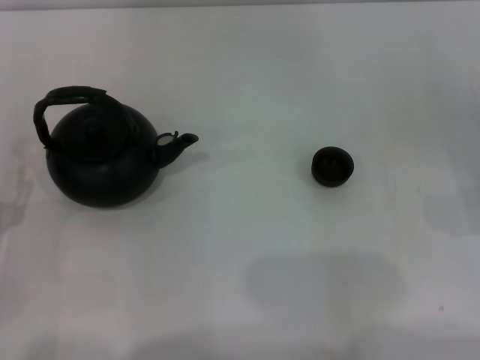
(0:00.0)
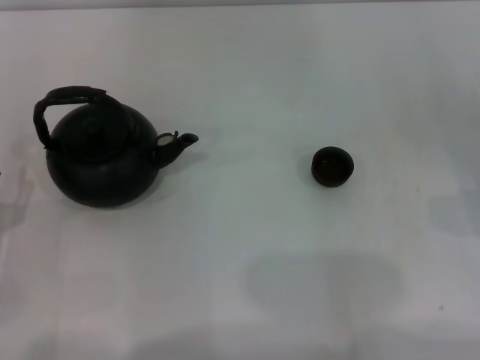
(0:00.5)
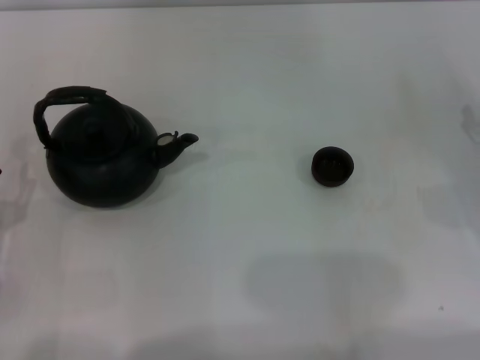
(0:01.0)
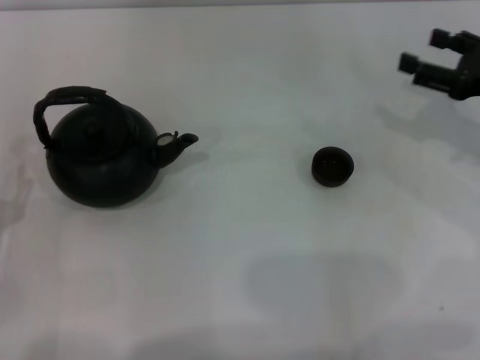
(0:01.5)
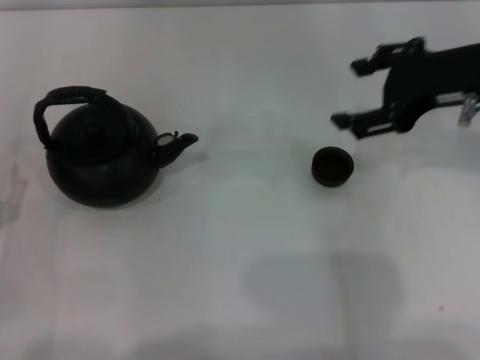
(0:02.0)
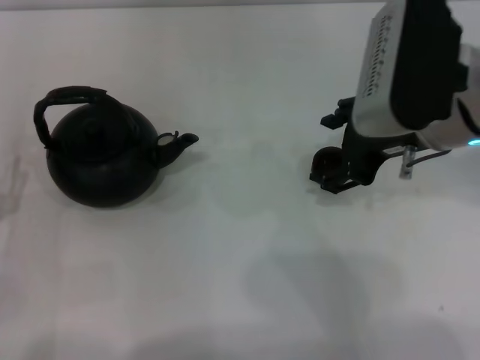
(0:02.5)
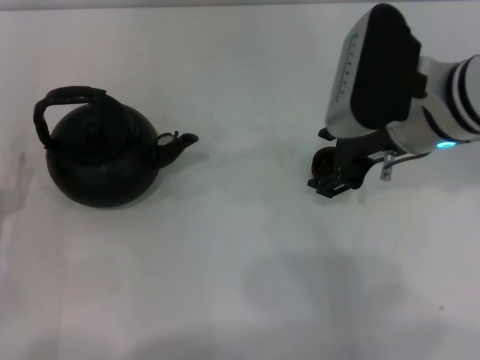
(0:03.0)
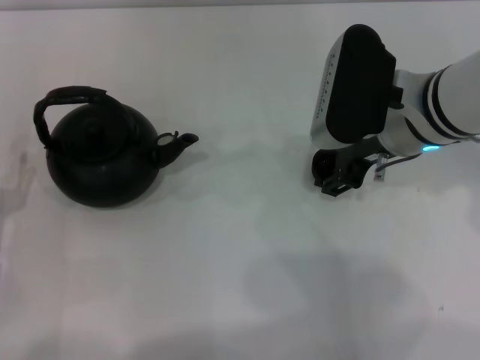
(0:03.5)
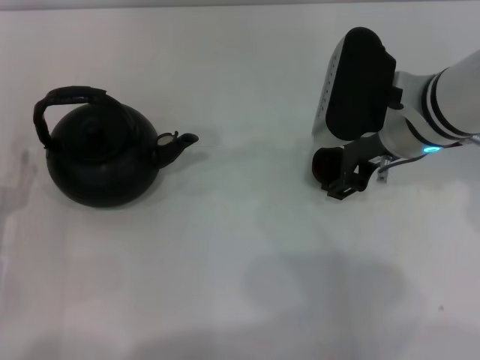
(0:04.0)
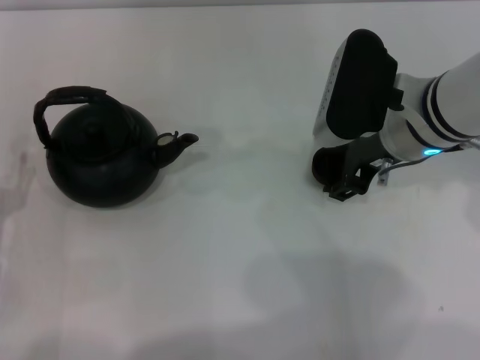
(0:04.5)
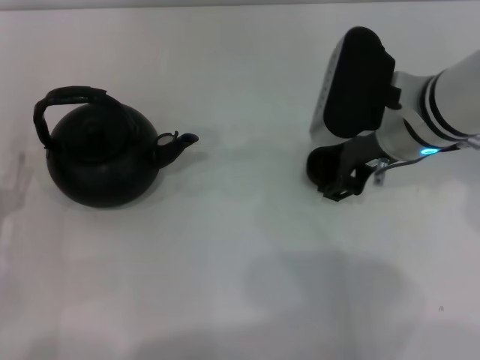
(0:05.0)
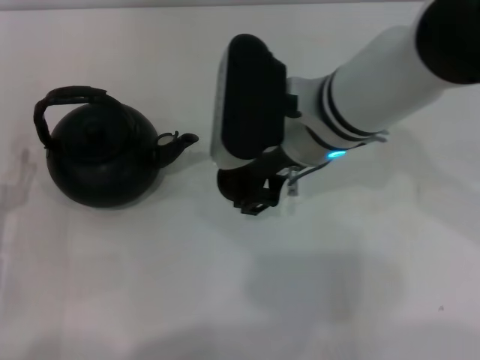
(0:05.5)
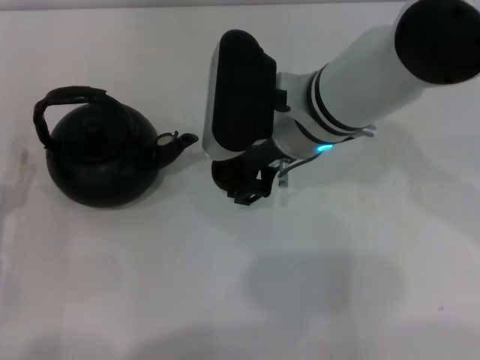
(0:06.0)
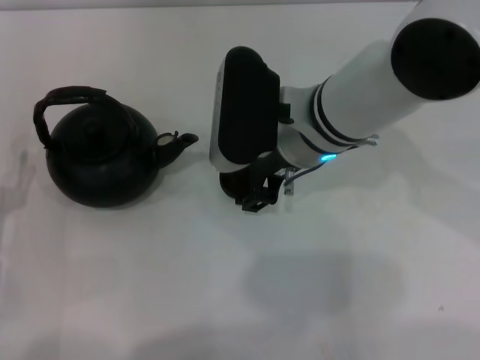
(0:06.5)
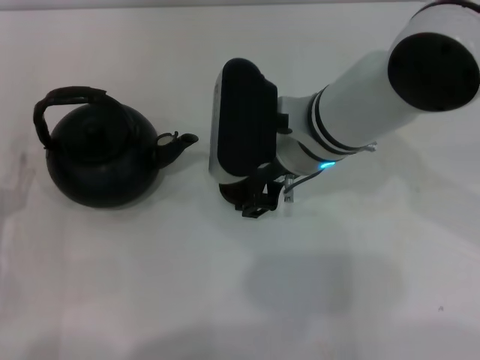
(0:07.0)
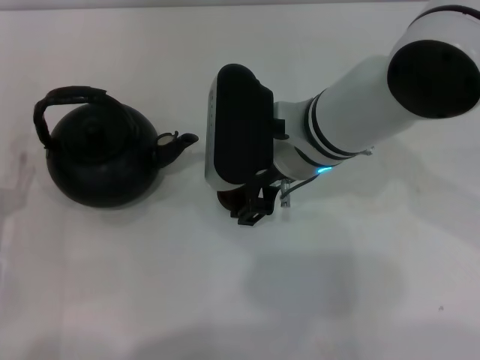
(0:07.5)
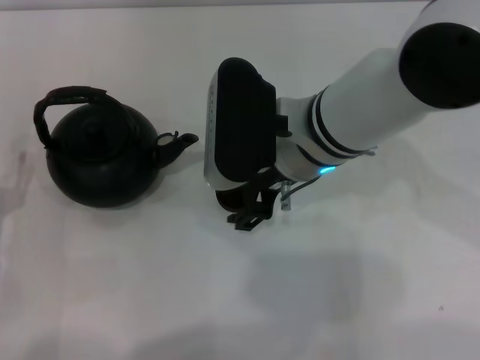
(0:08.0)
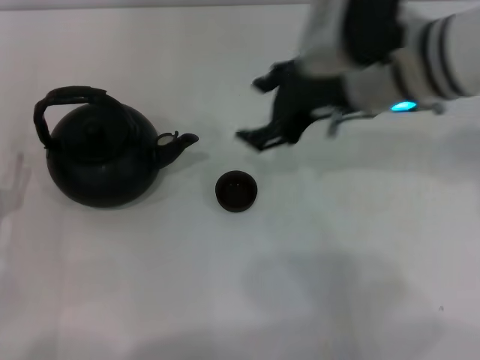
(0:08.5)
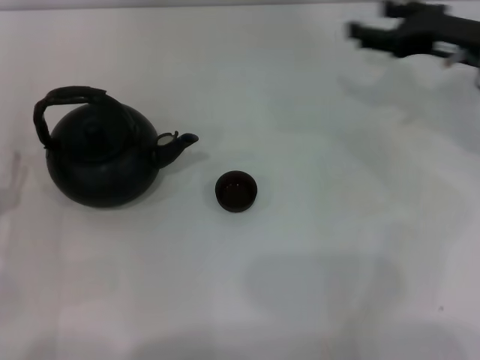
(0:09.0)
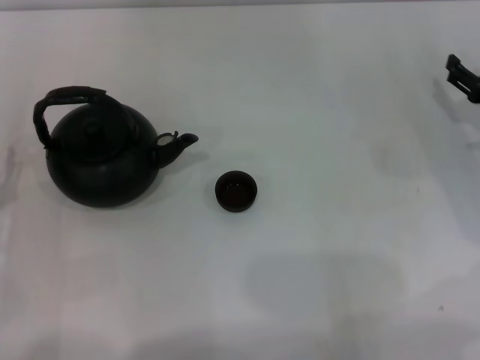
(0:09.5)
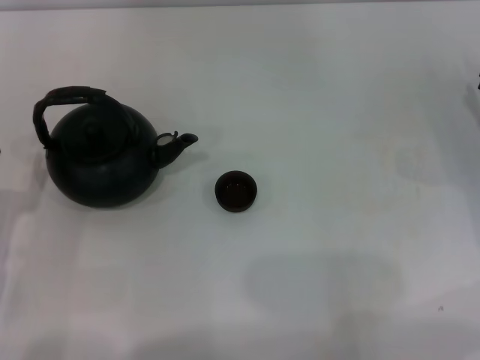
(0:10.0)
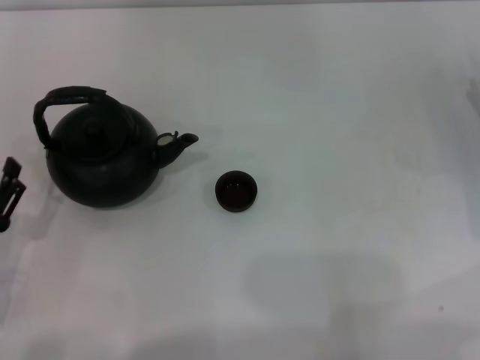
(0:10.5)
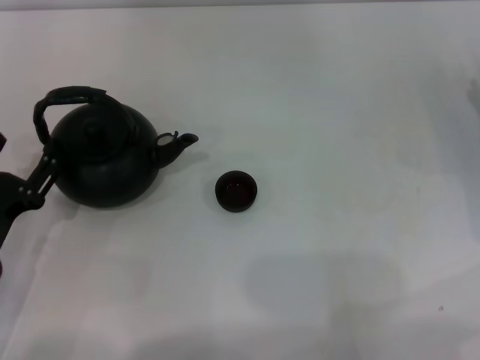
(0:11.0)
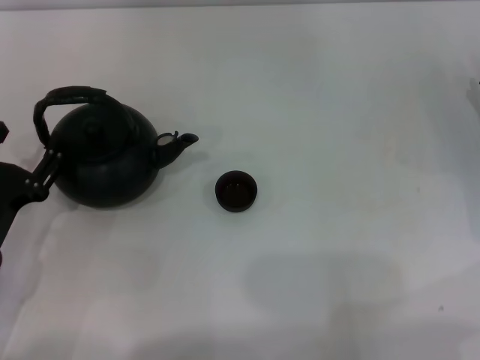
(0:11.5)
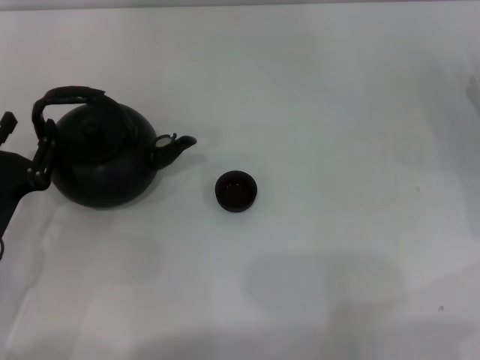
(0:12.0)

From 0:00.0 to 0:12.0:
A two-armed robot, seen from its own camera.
Task of the whole recording: Grasp the handle of the teapot with one hand and pour tea into the teacup.
Step, from 0:00.0 to 0:04.5: Pick up the teacup with the right gripper.
Step, from 0:05.0 to 0:08.0: Place the teacup in the center of view with the right gripper.
From 0:00.0 to 0:02.0: The right gripper heads upward, to the left and forward, covering approximately 25 cm.
From 0:02.0 to 0:04.0: The right gripper shifts some 10 cm to the left and downward.
From 0:04.0 to 0:06.0: The right gripper travels to the left by about 10 cm.
From 0:06.0 to 0:08.0: The grippers make only small movements.
From 0:08.0 to 0:10.0: The right gripper is displaced to the right by some 30 cm.
From 0:10.0 to 0:12.0: The grippers stay close to where they were, moving slightly.

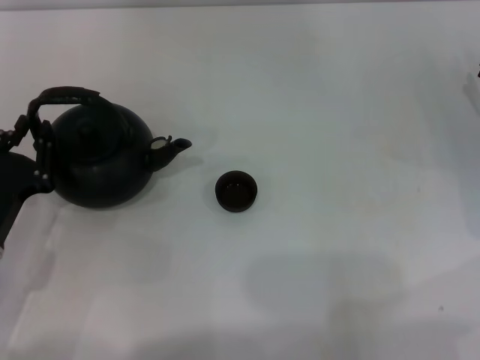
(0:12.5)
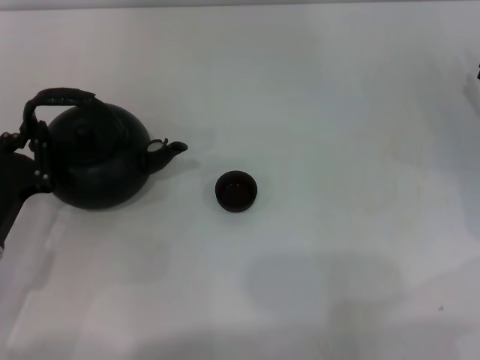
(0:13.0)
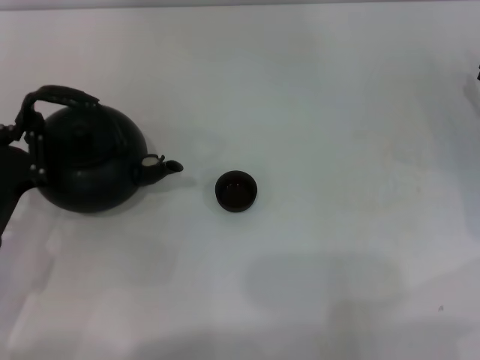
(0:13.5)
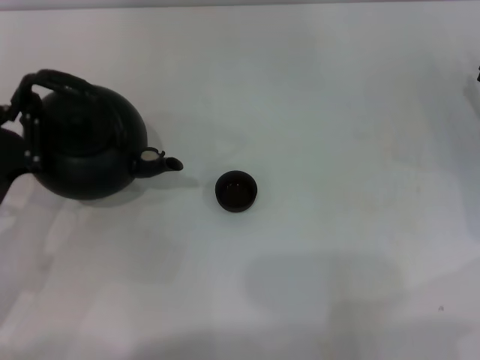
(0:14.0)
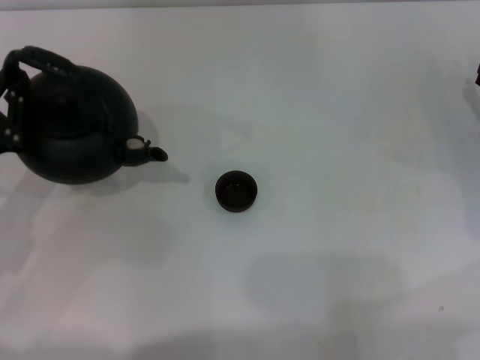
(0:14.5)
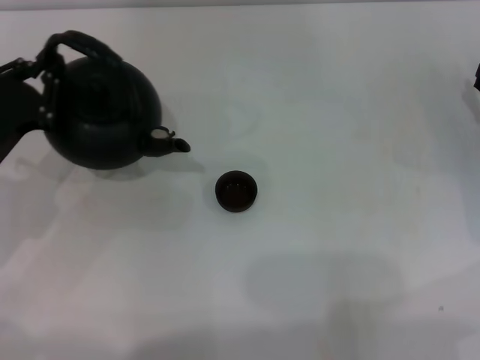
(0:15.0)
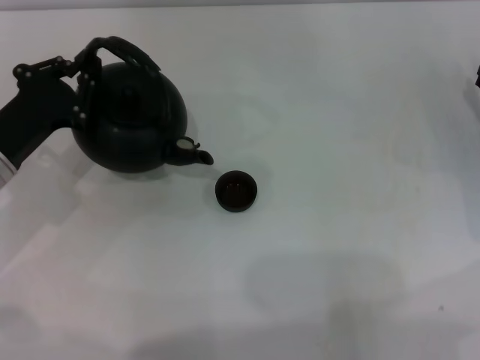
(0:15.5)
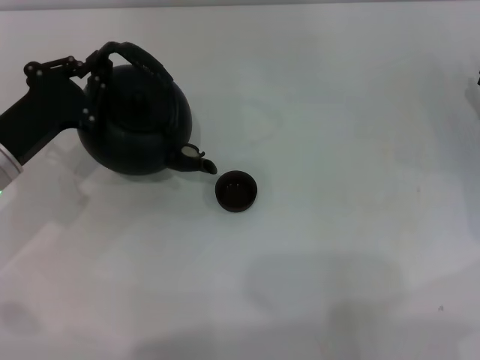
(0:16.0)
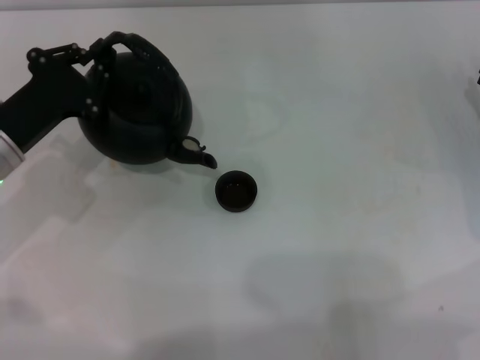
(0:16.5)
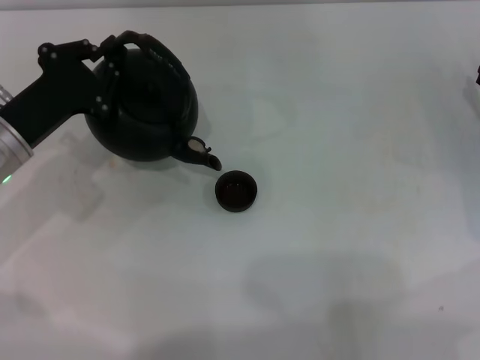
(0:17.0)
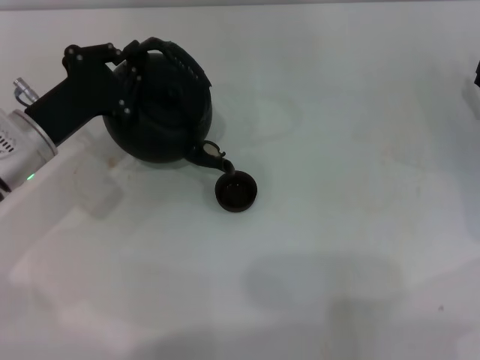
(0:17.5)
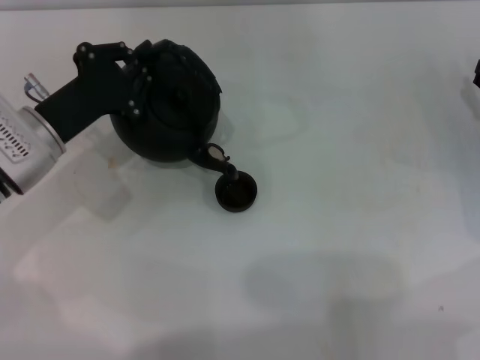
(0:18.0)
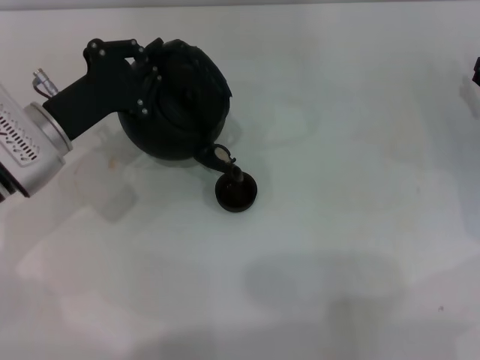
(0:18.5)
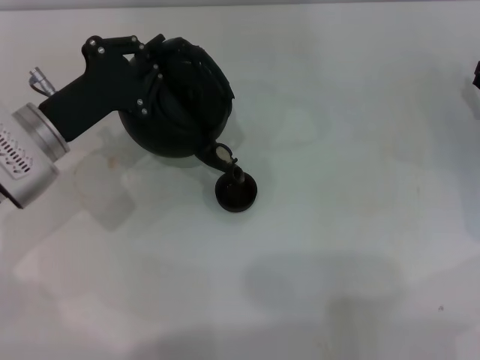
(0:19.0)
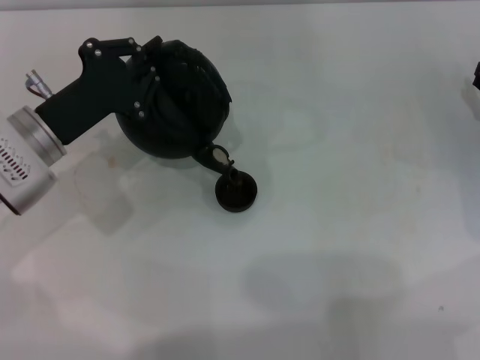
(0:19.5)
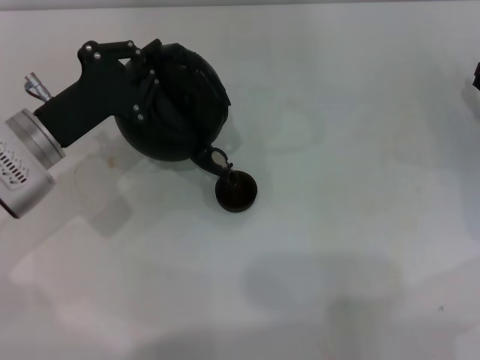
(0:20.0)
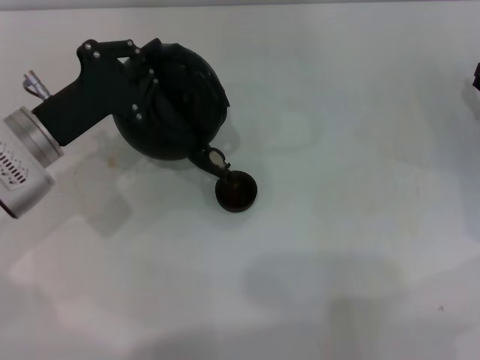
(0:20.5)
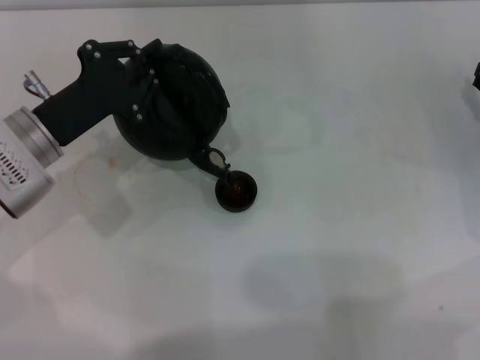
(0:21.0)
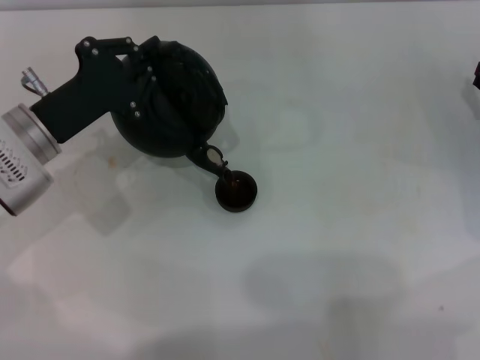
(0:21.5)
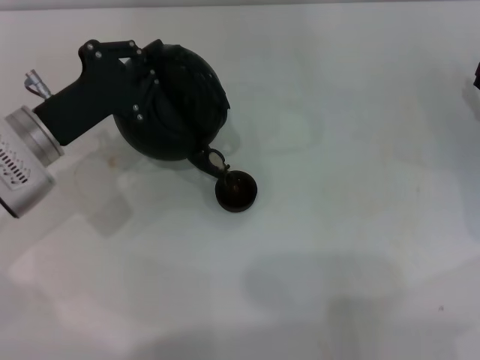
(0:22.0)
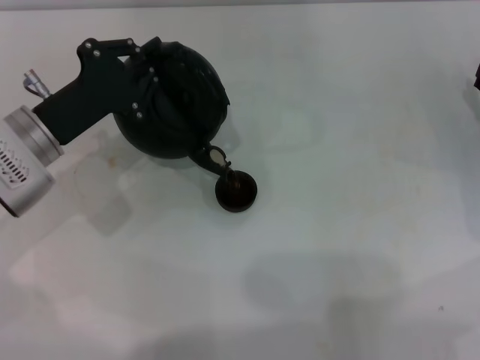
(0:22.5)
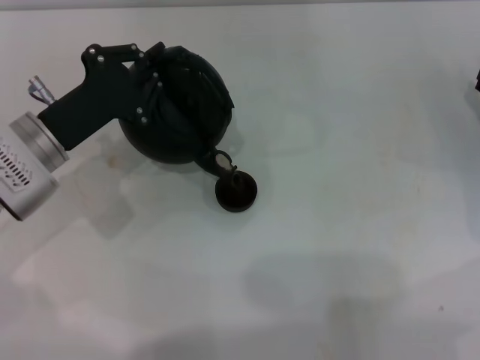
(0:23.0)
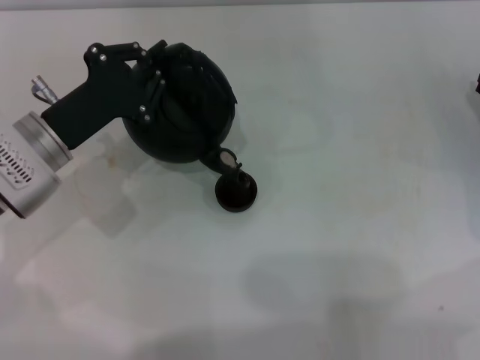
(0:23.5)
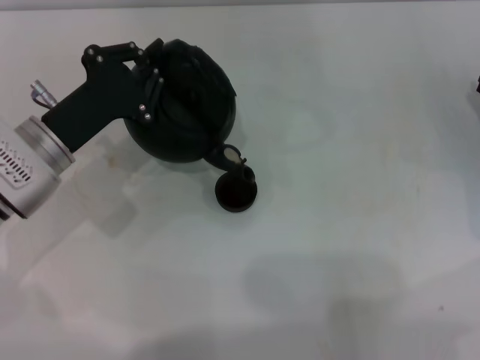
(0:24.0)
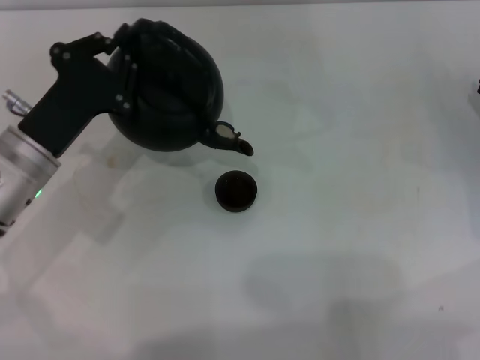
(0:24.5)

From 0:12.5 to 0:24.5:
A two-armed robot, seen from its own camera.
Task of the whole recording: Grasp the handle of the teapot with one hand and pour tea into the teacup.
Step, from 0:14.5 to 0:24.5: Pour tea into the teacup with the left gripper.
From 0:12.5 to 0:14.5: The left gripper ends up some 5 cm from where it was.
From 0:14.5 to 0:16.5: The left gripper shifts roughly 5 cm forward.
From 0:16.5 to 0:18.5: The grippers stay close to where they were, moving slightly.
From 0:18.5 to 0:20.5: The grippers stay close to where they were, moving slightly.
From 0:20.5 to 0:22.5: The two grippers keep their place.

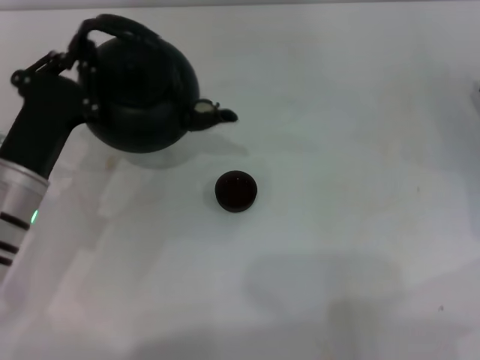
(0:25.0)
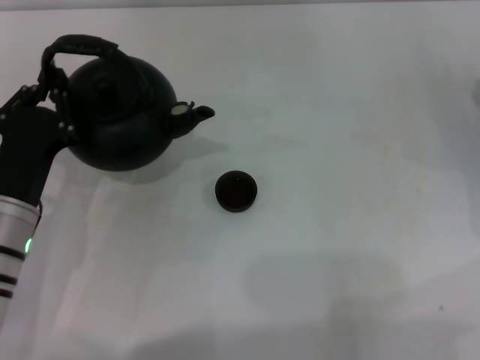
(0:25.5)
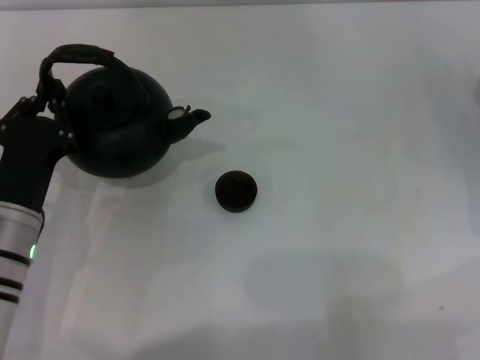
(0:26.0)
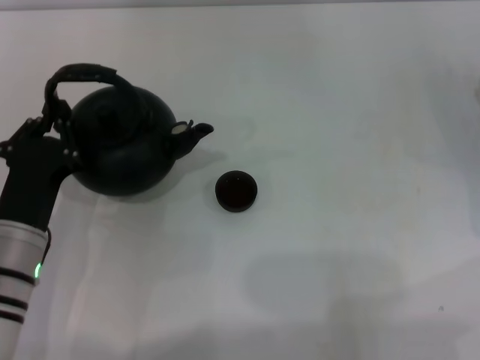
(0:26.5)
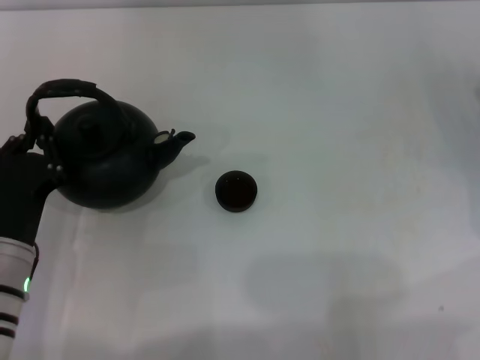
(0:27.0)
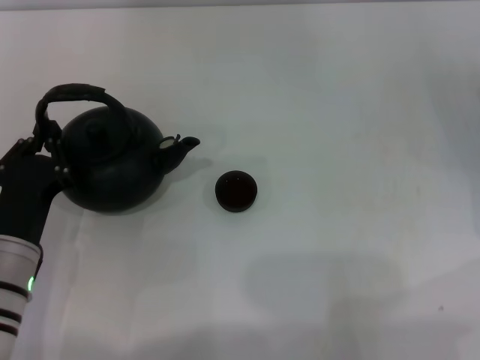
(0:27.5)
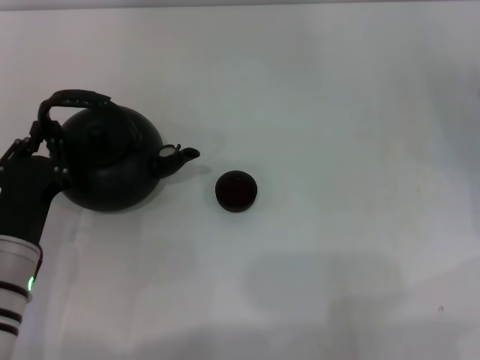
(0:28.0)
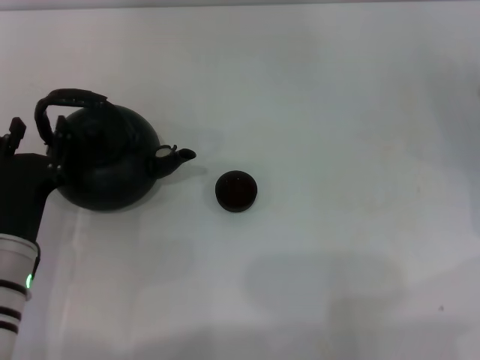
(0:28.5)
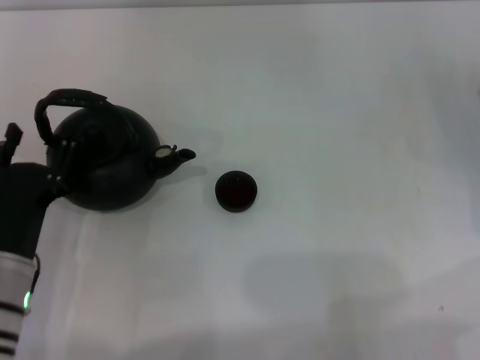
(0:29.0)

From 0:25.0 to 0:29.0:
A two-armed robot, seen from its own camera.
Task of the whole recording: Grasp the handle of the teapot with one hand and pour tea into the teacup.
From 0:25.0 to 0:27.0: The left gripper heads backward, covering roughly 5 cm.
From 0:27.0 to 0:29.0: The left gripper opens.
